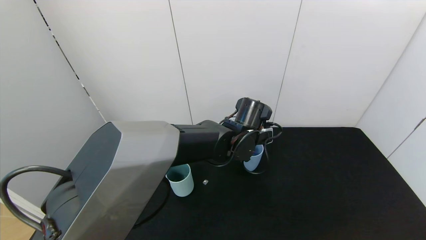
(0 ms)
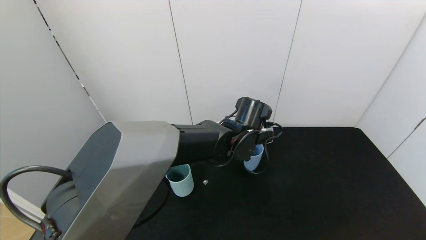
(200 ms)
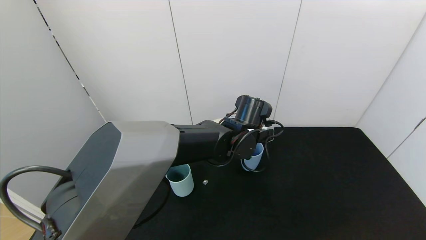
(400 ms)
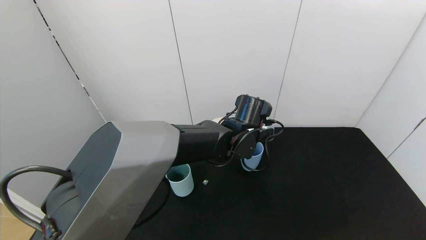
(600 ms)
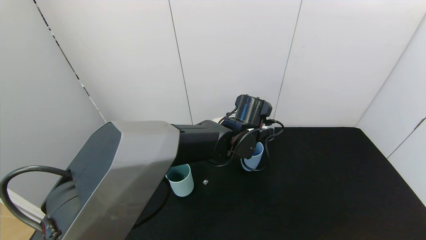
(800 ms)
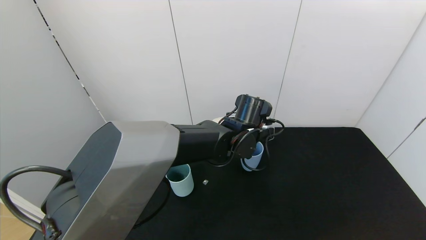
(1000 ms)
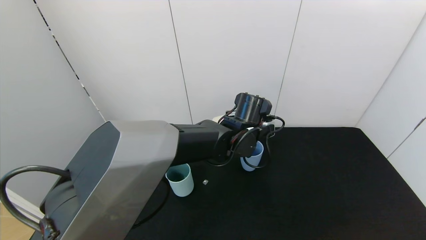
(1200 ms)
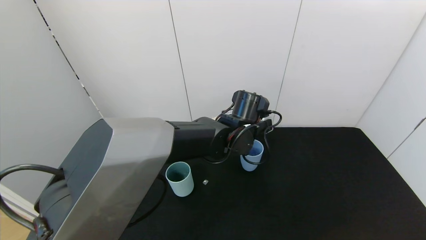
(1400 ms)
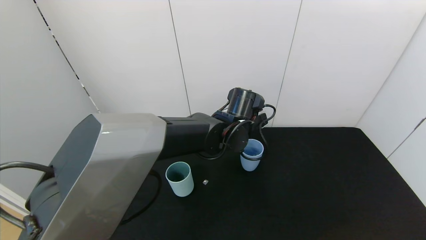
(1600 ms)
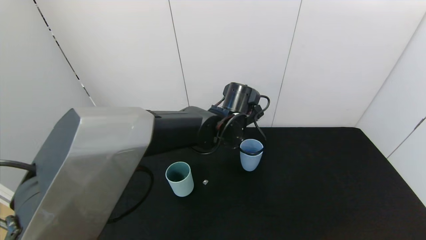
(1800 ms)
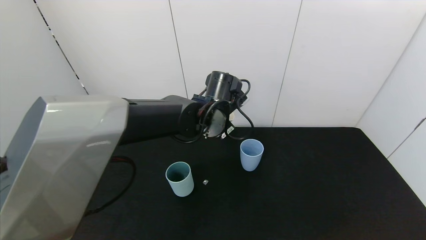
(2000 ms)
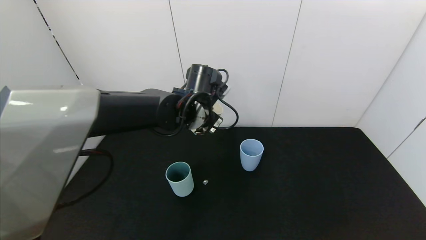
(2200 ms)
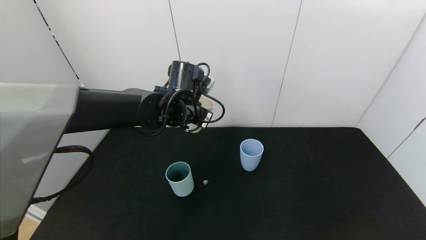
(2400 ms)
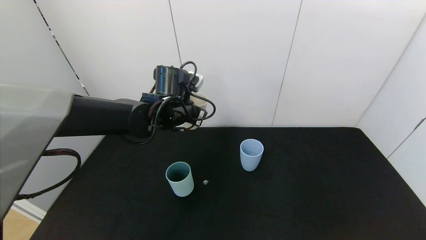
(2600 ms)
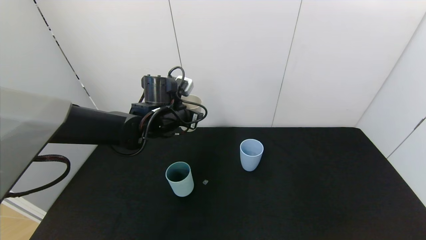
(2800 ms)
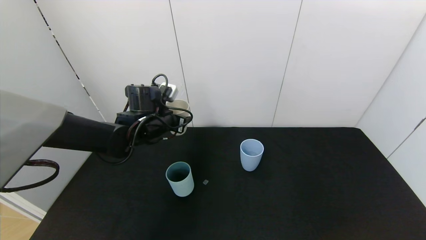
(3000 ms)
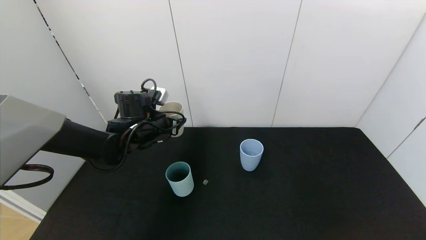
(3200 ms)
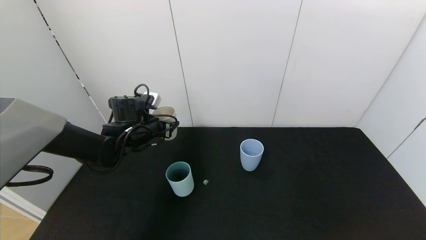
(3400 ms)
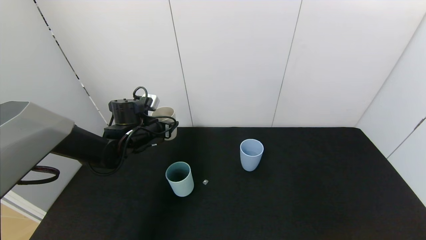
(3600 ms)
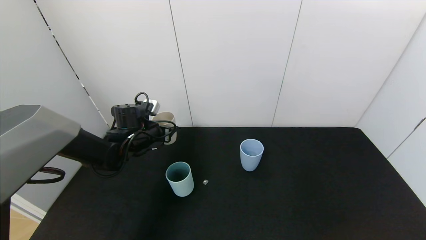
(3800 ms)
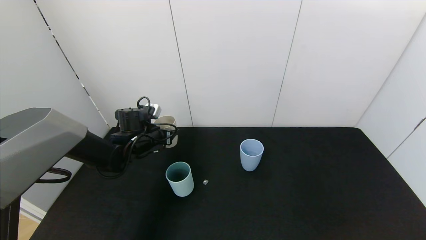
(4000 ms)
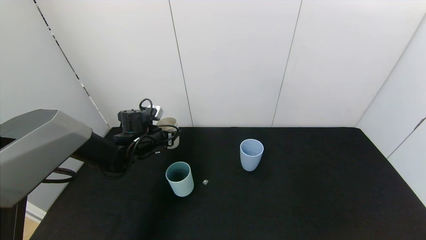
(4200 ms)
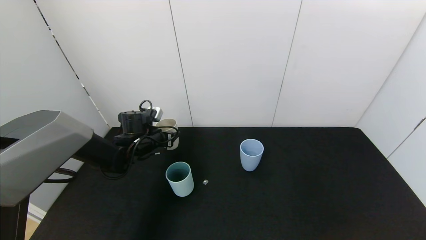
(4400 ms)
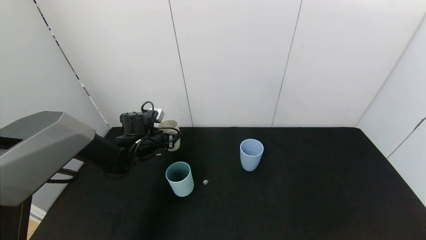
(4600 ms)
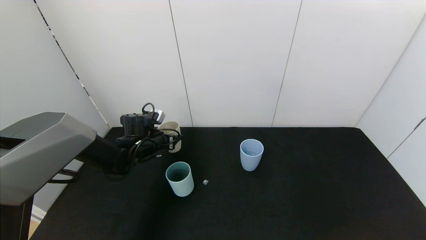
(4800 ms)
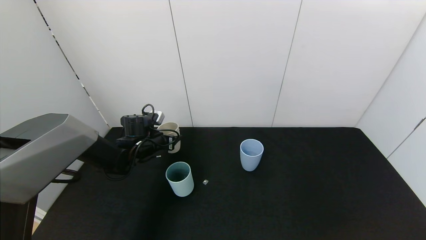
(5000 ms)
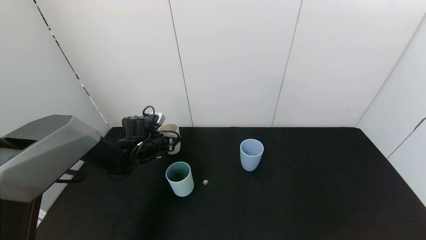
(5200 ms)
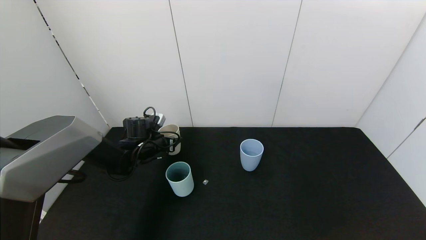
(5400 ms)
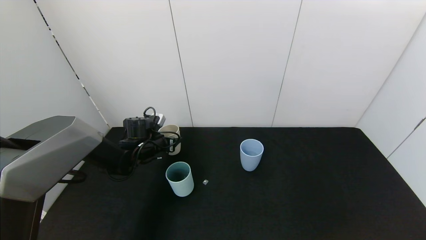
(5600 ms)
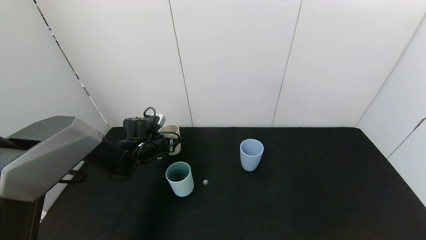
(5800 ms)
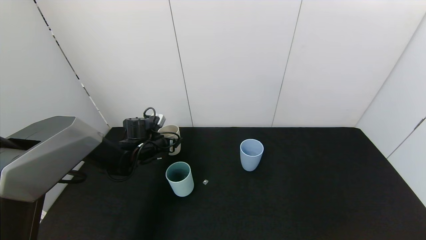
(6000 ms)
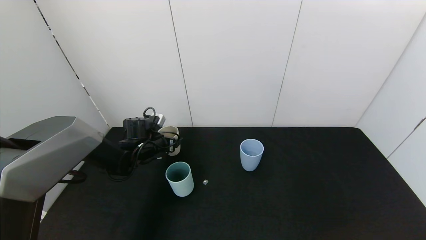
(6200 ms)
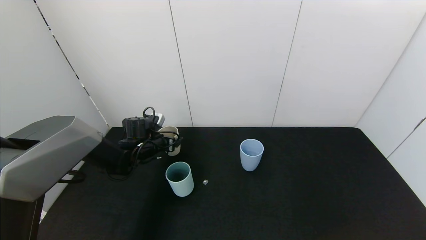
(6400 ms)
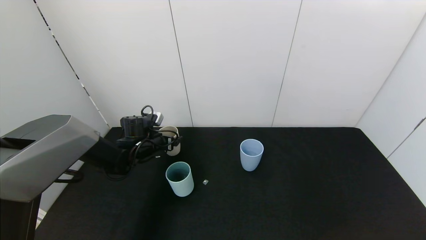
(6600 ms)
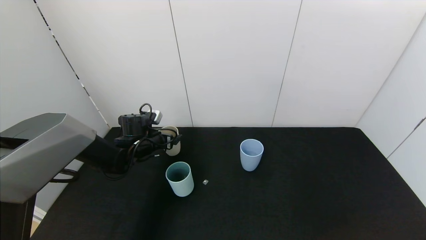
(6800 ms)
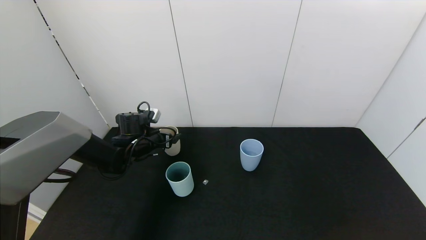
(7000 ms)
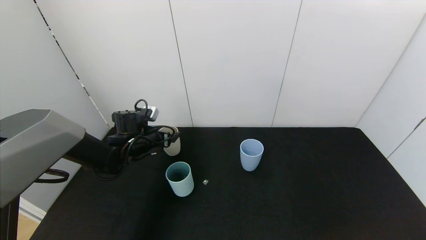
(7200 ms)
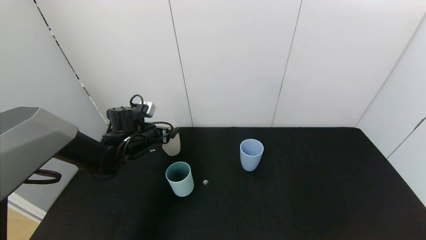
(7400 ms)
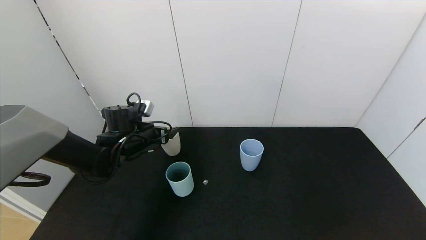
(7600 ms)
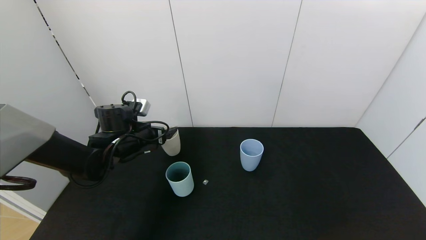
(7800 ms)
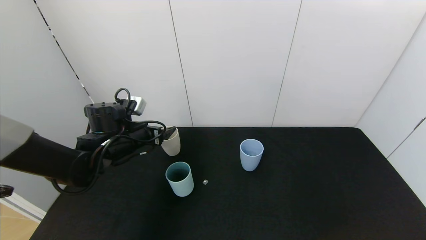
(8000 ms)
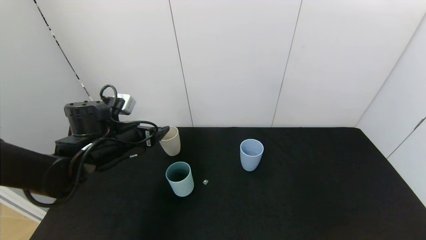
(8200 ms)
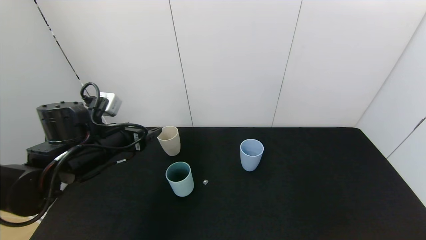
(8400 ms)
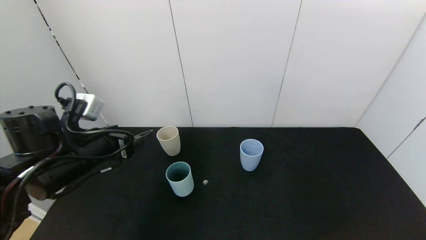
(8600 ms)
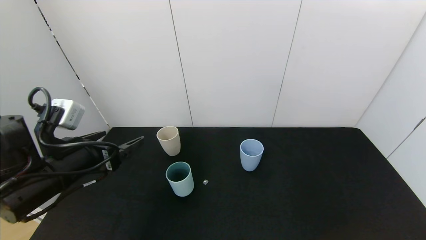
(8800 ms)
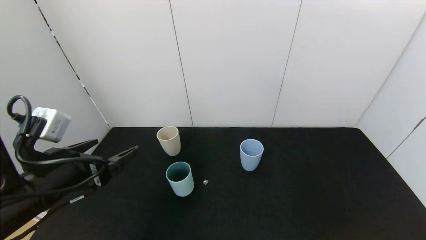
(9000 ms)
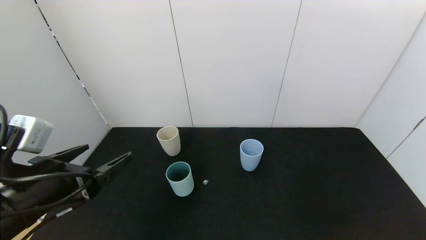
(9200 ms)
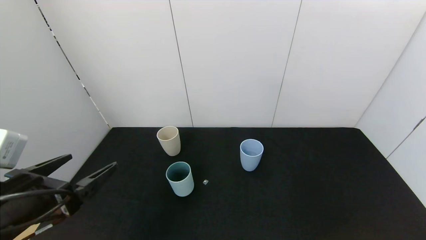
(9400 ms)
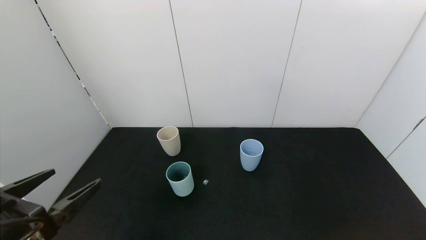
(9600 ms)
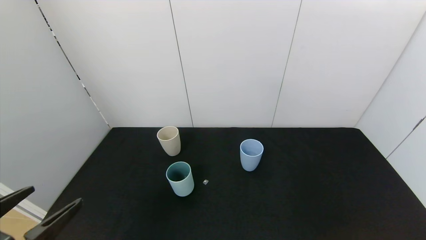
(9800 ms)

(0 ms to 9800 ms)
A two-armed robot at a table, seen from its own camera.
Task of the whole recording: use the gripper to pour the water into the other two cups on black table.
Step, 0 ms - 2000 ms: Pour water from white cup to blue cup with the left gripper.
Step, 2200 ms - 8400 ms: Place the white cup with the left gripper.
0 ms - 1400 ms: The grippers make only small movements.
1400 ms - 2800 ms: The left gripper goes roughly 20 cm to the left.
2800 ms - 4200 ms: The left gripper is displaced downward and to the left by roughly 10 cm.
4200 ms - 5600 ms: The grippers stay close to where they were, moving slightly.
5600 ms - 7000 ms: The left gripper opens.
7000 ms - 8400 ms: The left gripper travels backward and upward by about 15 cm.
8400 ms - 9800 ms: The left gripper goes some 20 cm backward.

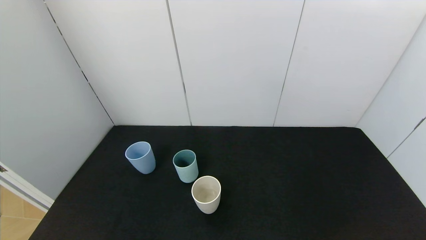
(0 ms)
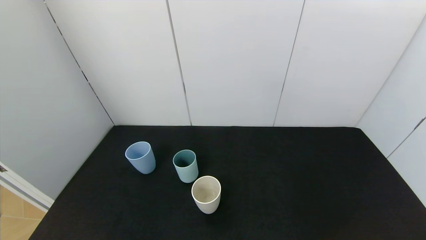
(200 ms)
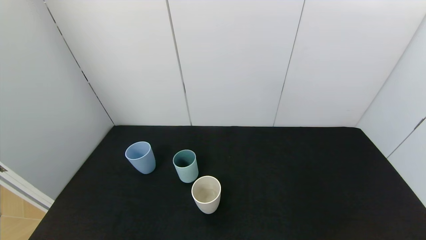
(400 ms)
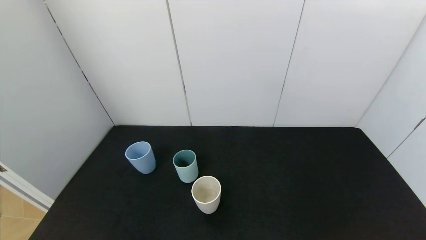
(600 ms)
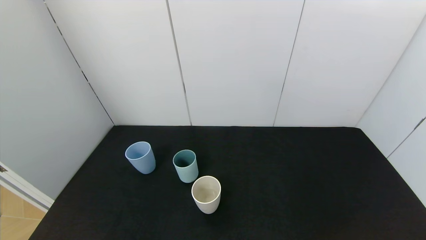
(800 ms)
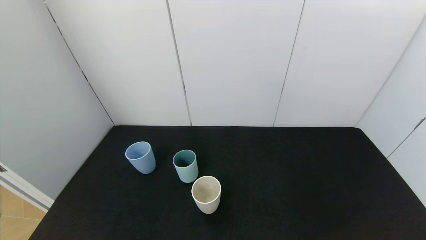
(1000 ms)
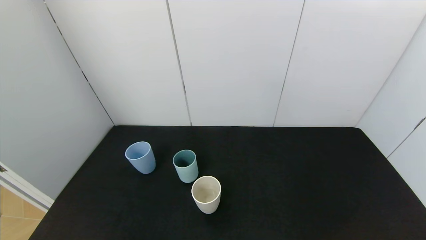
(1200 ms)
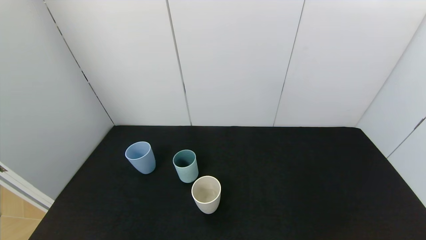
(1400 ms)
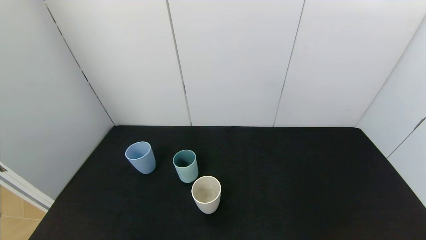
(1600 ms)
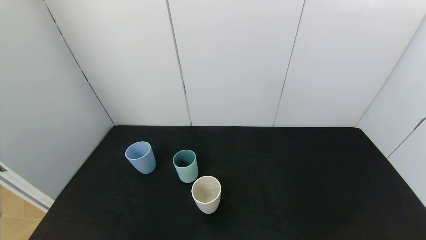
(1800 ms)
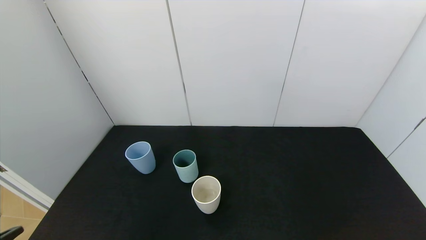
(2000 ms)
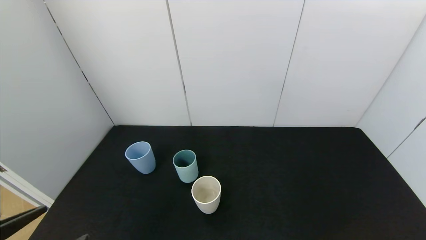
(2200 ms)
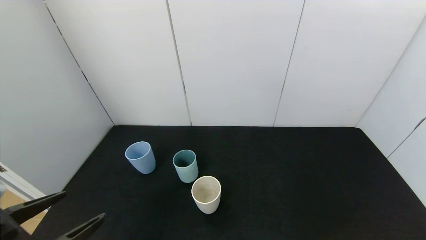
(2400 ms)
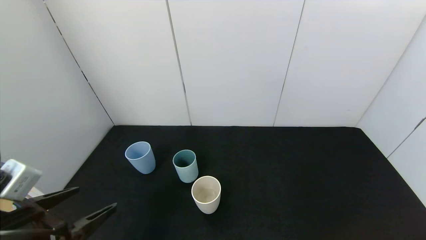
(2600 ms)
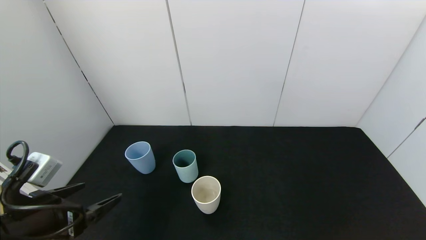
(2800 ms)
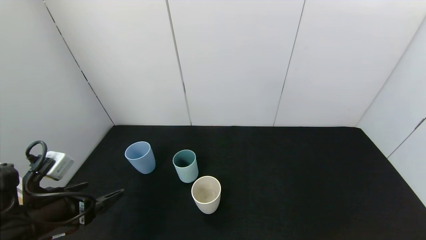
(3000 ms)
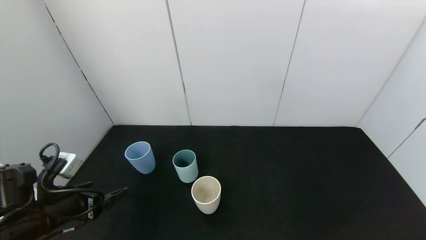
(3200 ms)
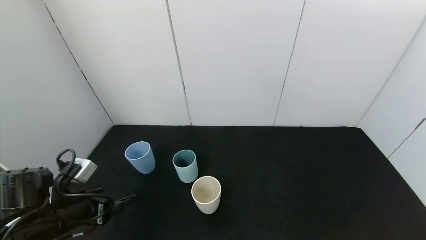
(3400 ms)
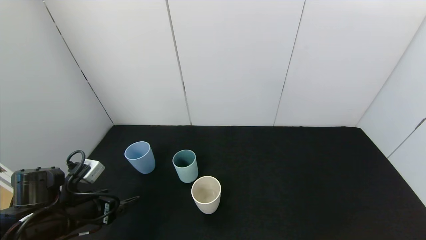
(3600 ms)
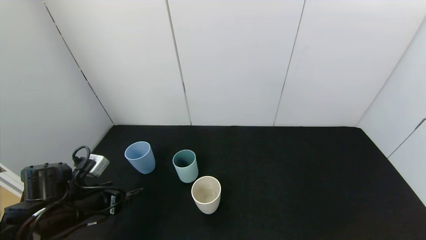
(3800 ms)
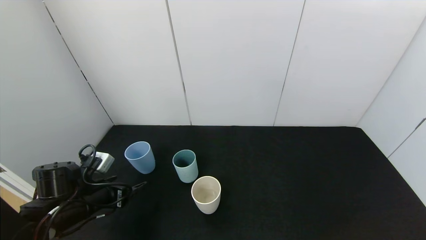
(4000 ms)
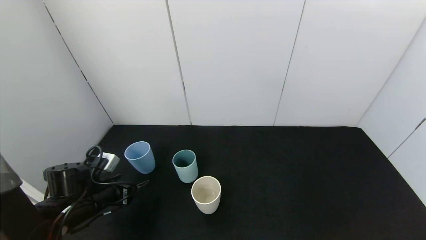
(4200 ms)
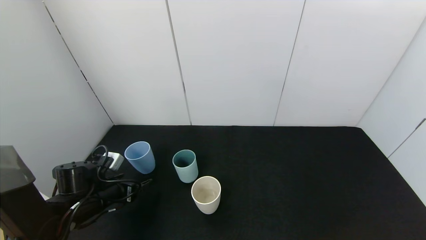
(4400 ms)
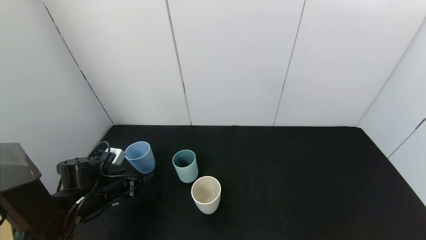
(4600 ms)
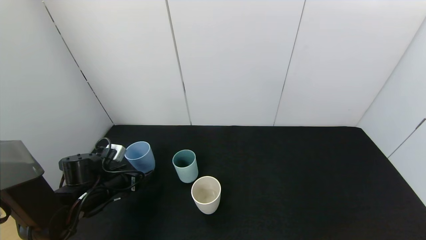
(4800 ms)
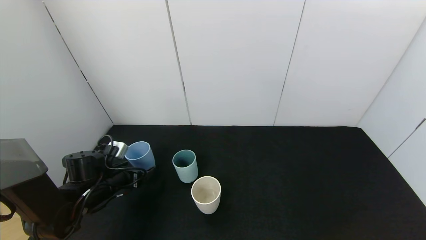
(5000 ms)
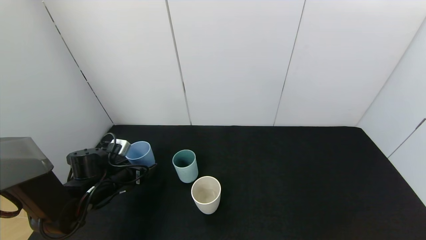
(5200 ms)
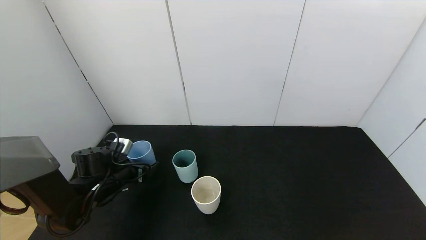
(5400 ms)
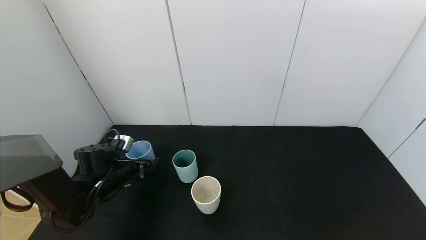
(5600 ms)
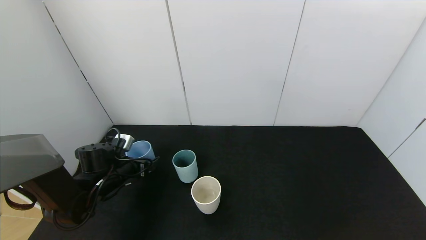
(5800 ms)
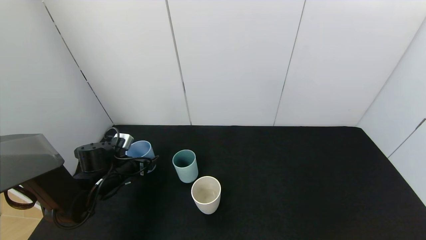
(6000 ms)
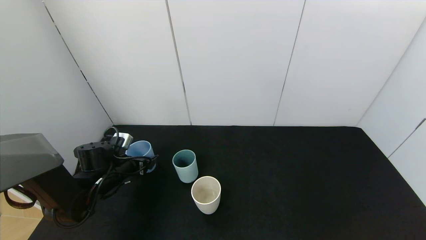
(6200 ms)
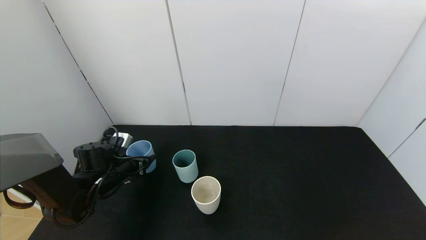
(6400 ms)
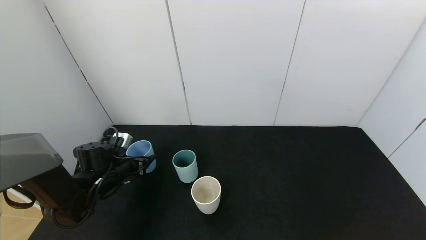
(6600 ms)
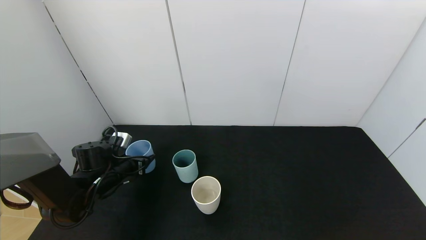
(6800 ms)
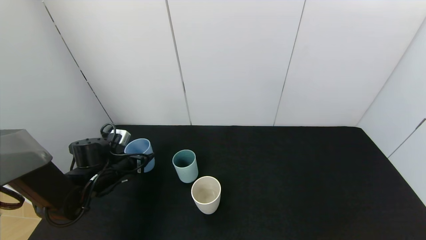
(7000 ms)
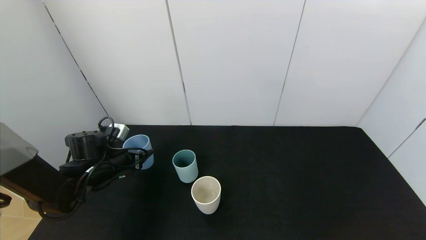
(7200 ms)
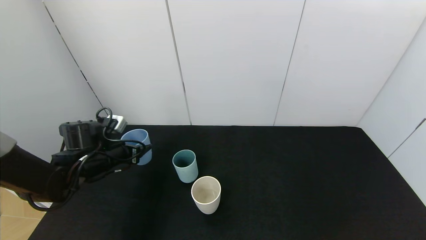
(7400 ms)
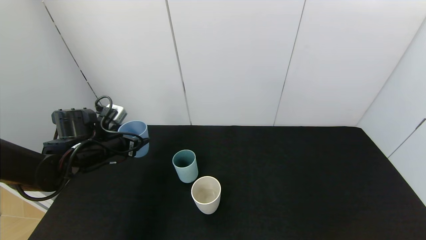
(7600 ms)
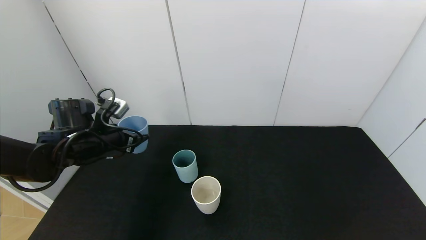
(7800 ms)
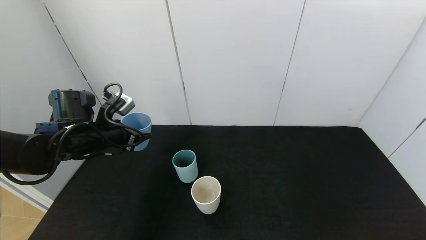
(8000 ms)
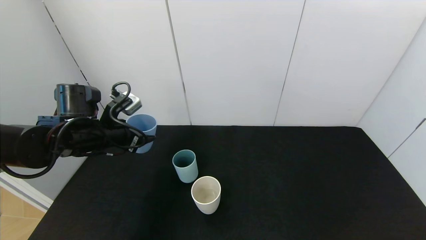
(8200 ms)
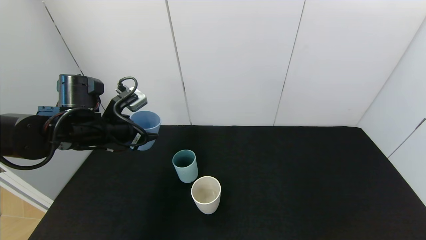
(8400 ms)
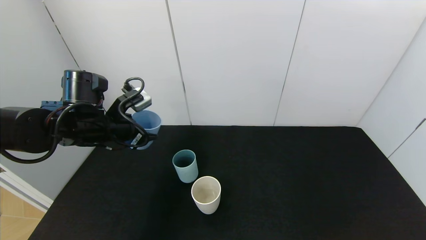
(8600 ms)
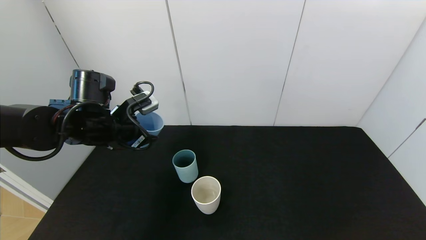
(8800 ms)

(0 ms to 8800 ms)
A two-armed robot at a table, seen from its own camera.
Task of the whole recording: use the gripper to pour the water into the other two cups on black table.
Step, 0 ms - 6600 ms: Grasp the blue cup with the left gripper.
1400 ms - 3000 ms: The left gripper is displaced forward by some 20 cm.
3000 ms - 4400 ms: The left gripper goes about 15 cm forward and downward.
4400 ms - 5800 ms: The left gripper shifts some 5 cm forward.
5800 ms - 7400 ms: The left gripper goes about 5 cm upward, and closes its fingers.
7400 ms - 8800 ms: The left gripper shifts approximately 10 cm upward and to the right.
